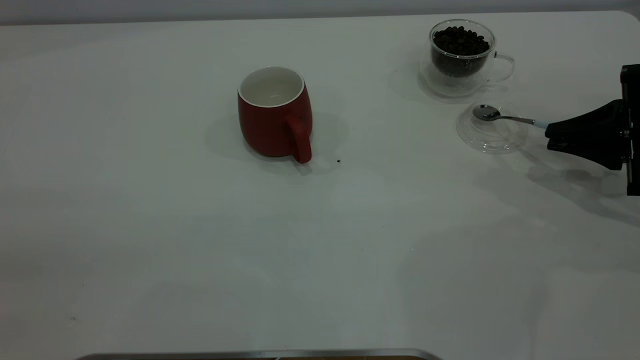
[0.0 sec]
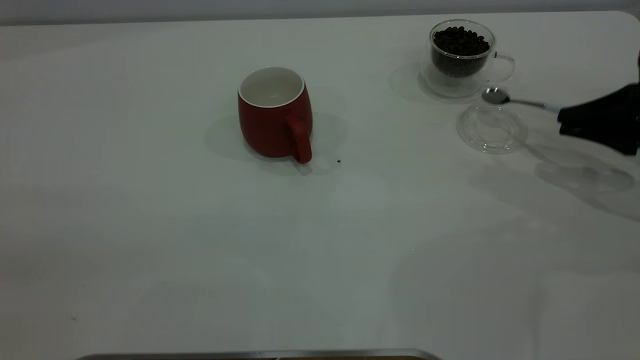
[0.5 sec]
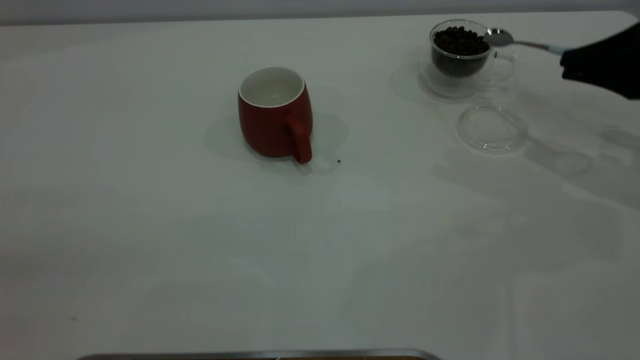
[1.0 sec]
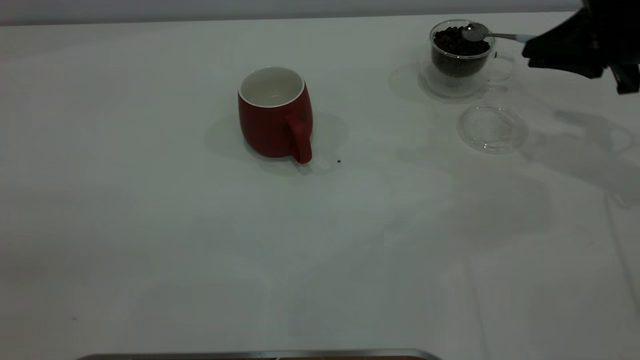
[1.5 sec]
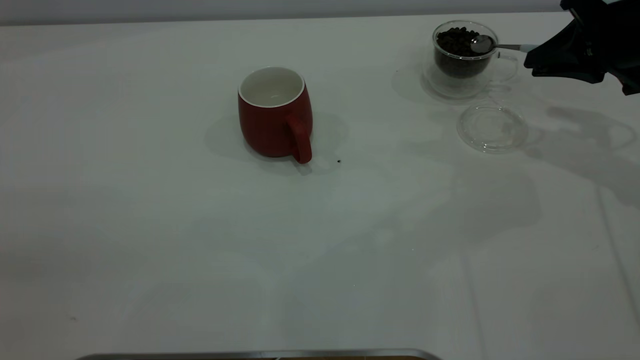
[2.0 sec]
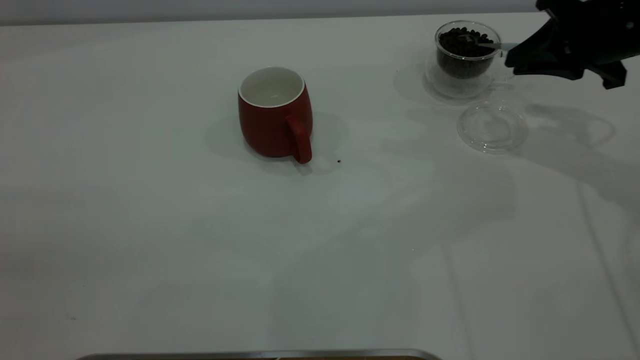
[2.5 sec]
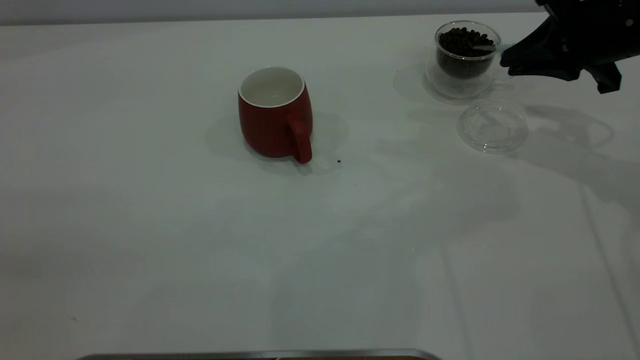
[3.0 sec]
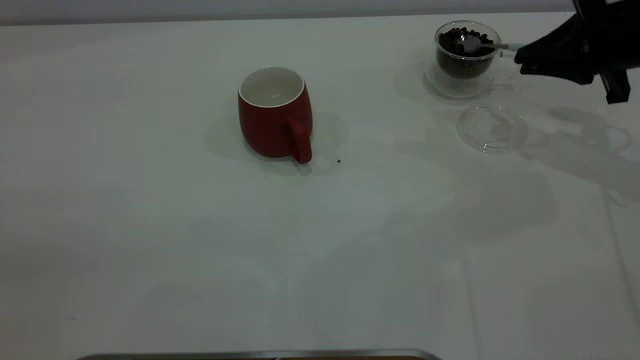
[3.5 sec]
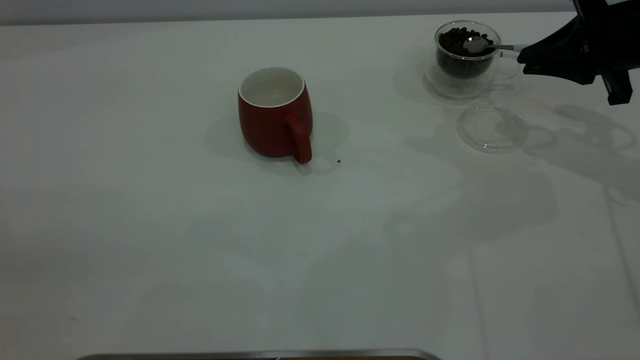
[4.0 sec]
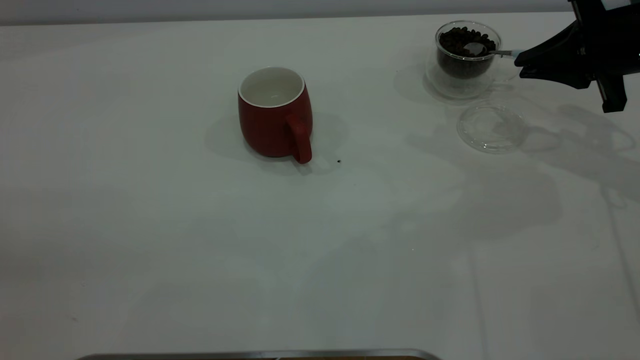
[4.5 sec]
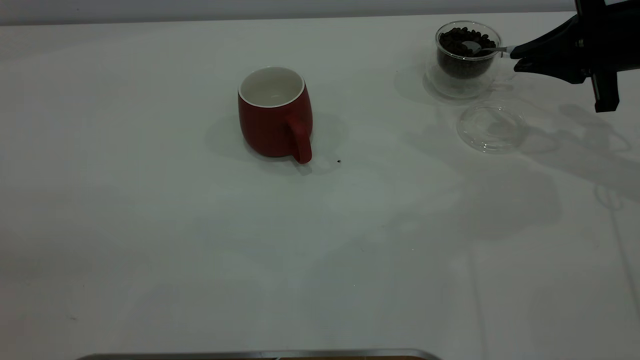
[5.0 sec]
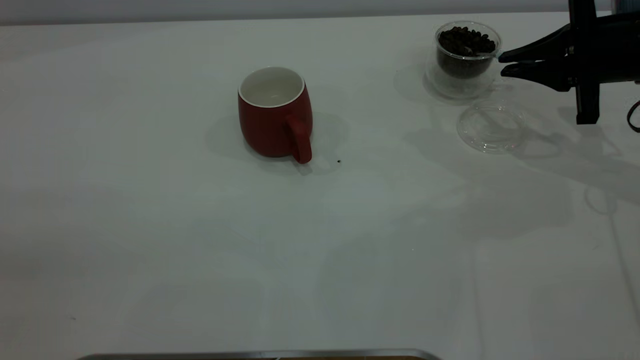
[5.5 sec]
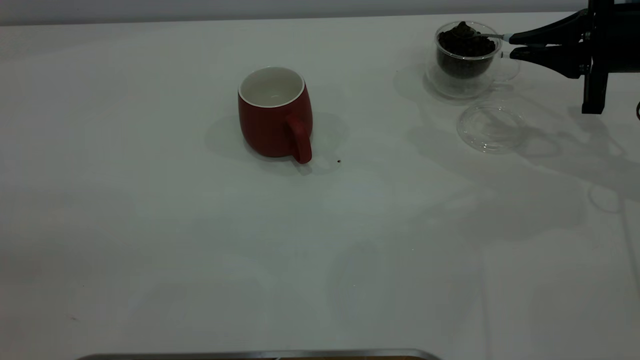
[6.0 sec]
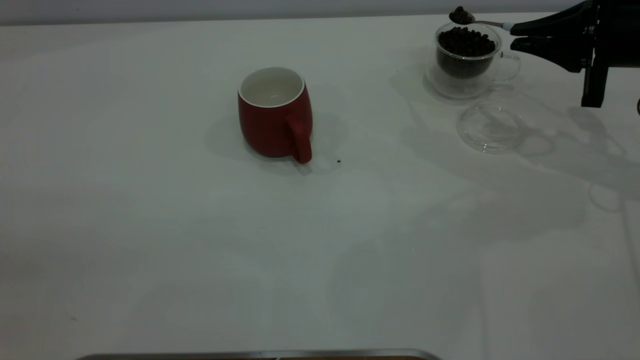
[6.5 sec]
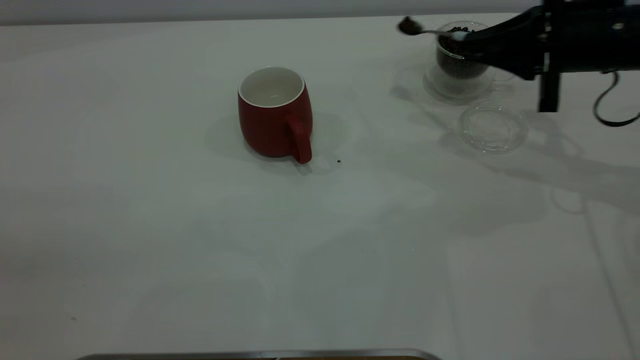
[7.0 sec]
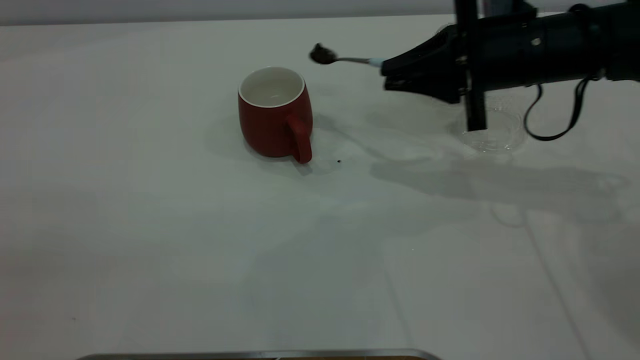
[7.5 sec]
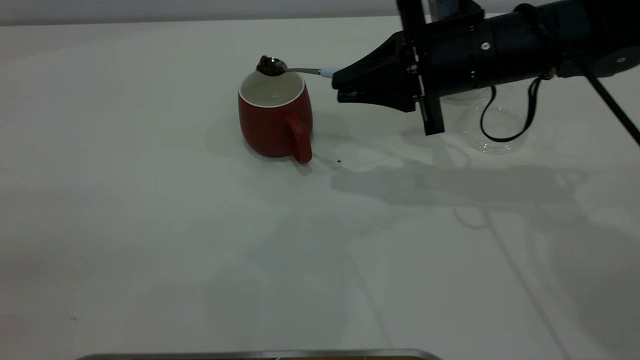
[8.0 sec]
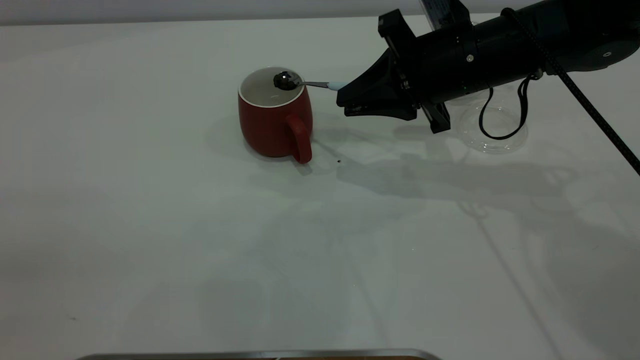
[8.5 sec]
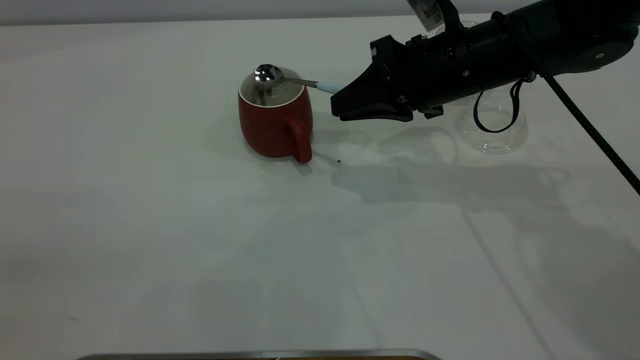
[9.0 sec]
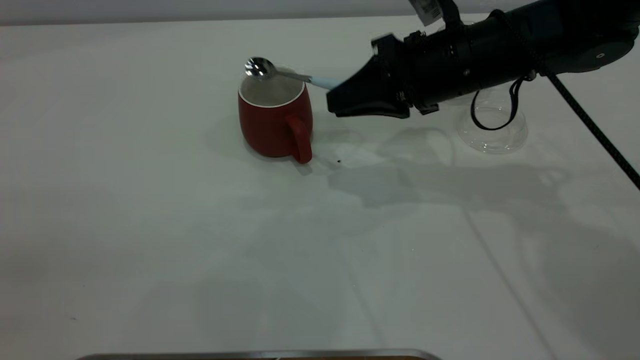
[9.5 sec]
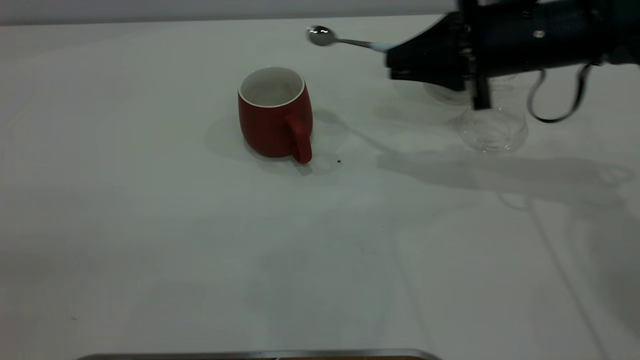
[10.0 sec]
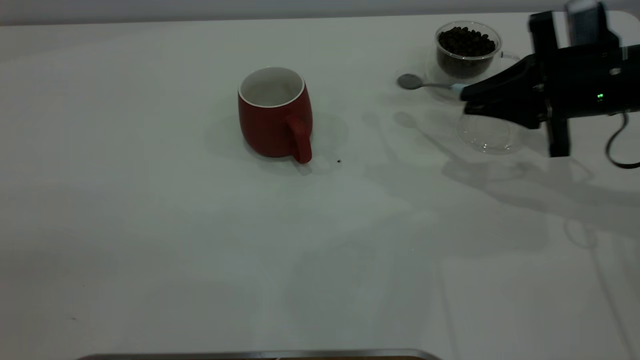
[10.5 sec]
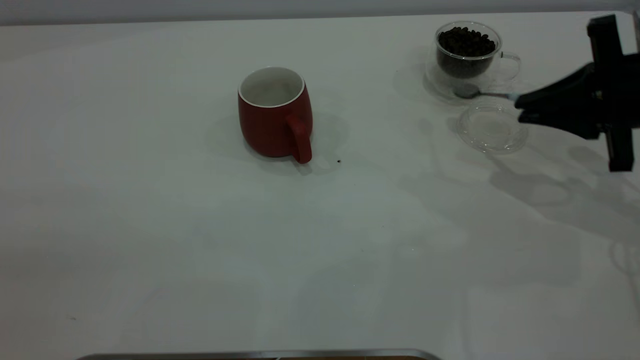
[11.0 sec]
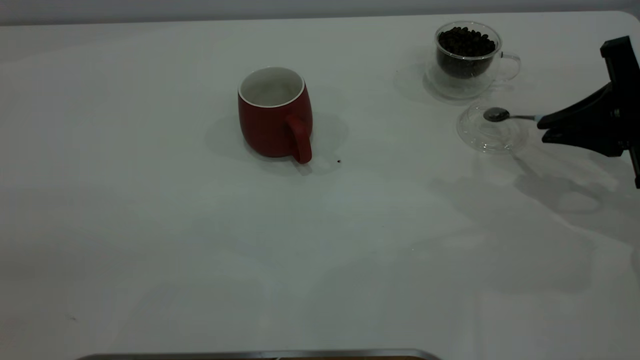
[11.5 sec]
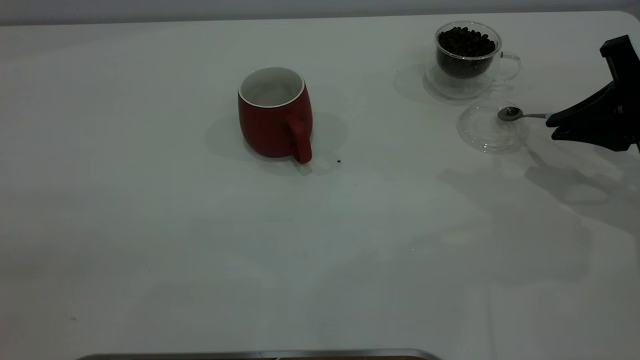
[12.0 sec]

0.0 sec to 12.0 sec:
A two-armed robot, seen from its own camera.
Task of the whole recording: the left gripper place the red cup in the center of the table, the right gripper take the blue spoon from the cup lid and scoop out the coffee beans from the coffee cup and put them into the red cup, the right gripper put the spoon back into the cup lid.
Step, 0.5 sec to 9.5 sec: Scoop a spoonful of beans into the cup.
0.0 sec to 2.0 sec: The right gripper travels upward and forward by some 10 cm.
2.0 sec to 4.0 sec: The grippers move only a little.
6.0 sec to 8.0 sec: The right gripper shifts about 20 cm to the left.
8.0 sec to 10.0 sec: The right gripper travels to the right by about 5 cm.
10.0 sec to 12.0 sec: The right gripper goes approximately 15 cm to the right and backward.

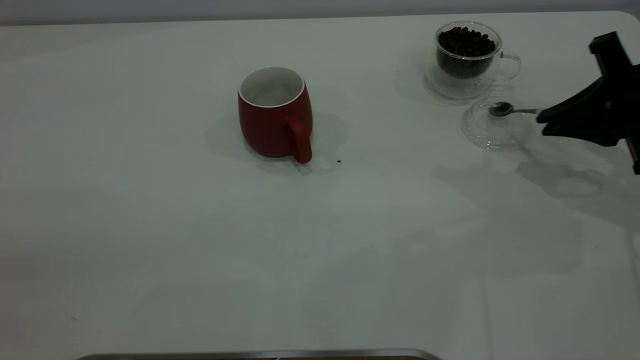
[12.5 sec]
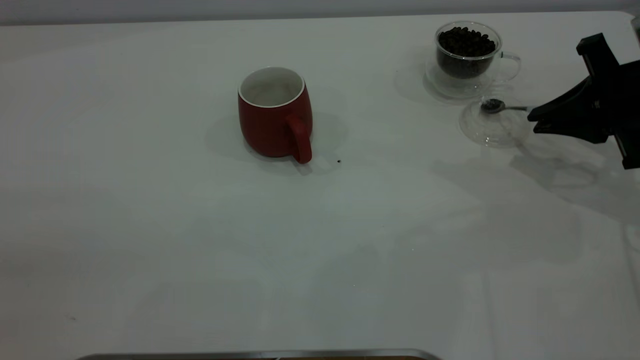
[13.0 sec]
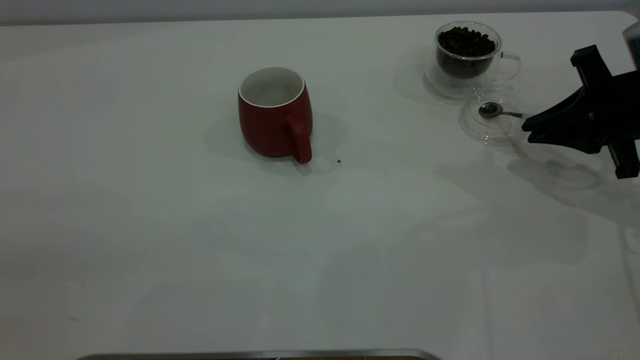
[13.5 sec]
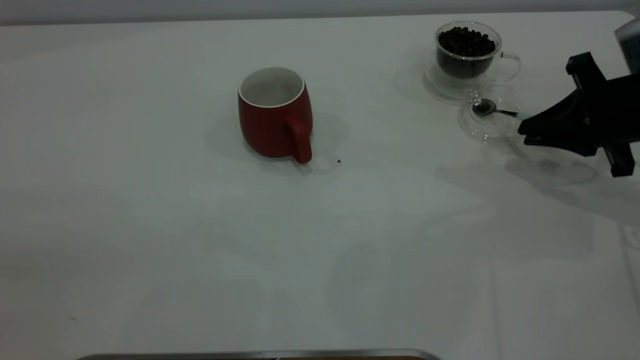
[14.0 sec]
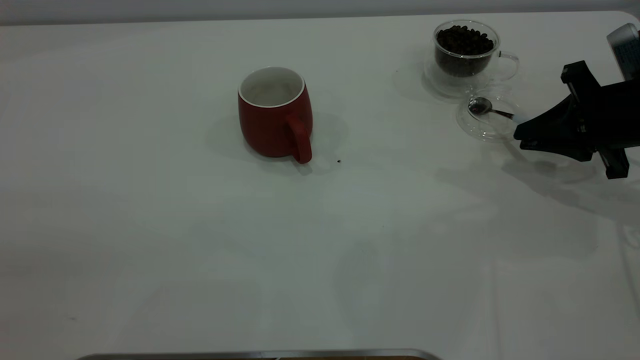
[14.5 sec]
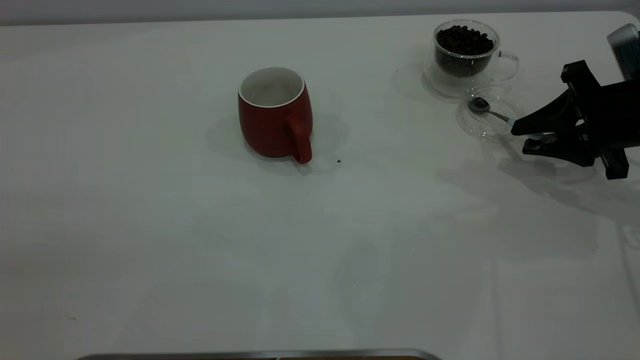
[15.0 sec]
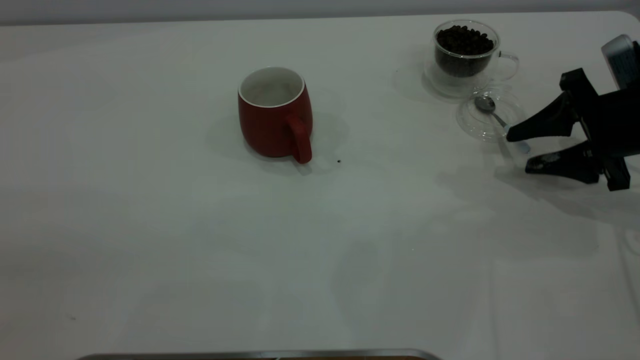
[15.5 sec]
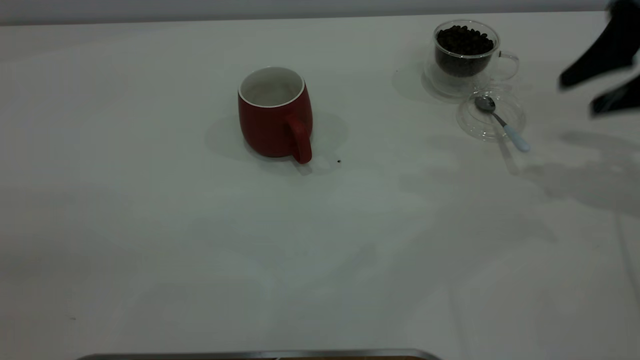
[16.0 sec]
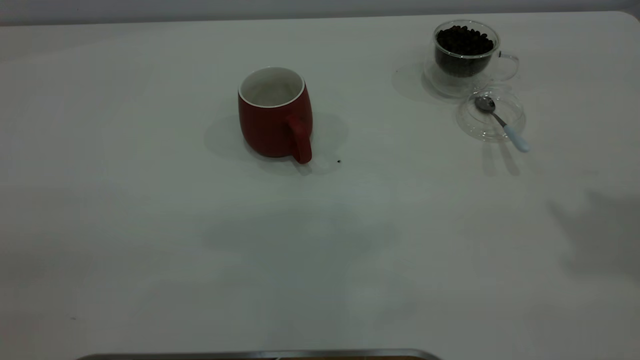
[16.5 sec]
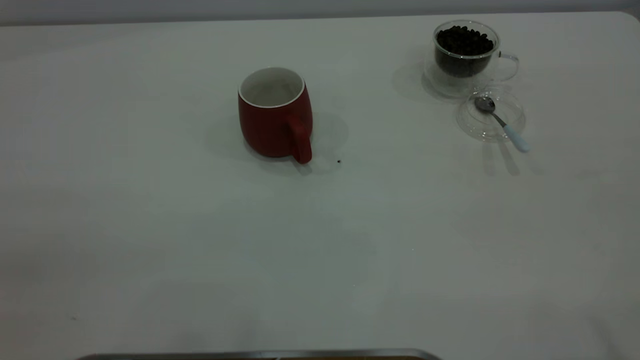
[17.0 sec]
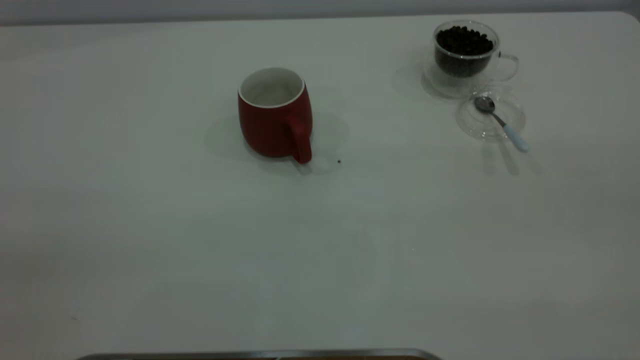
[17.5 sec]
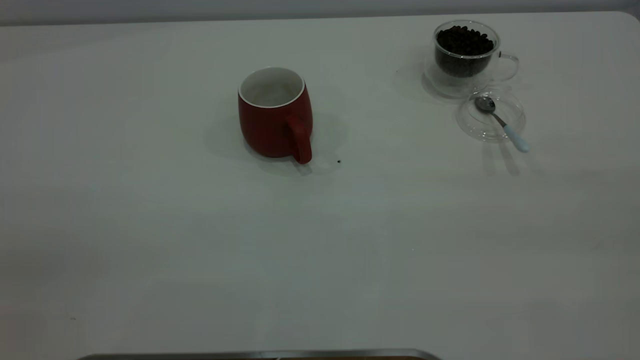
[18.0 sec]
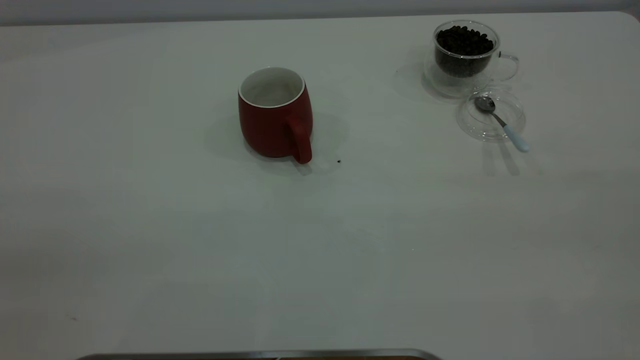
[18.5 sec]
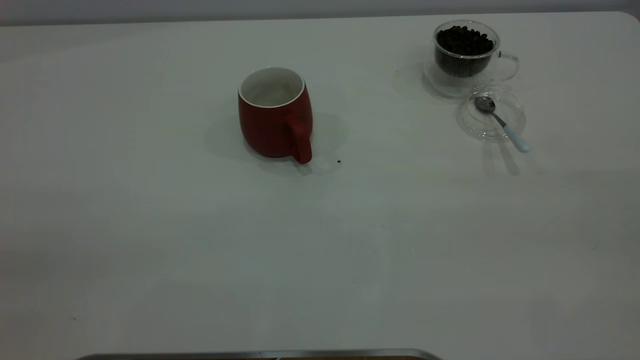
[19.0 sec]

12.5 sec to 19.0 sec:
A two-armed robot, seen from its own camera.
Task of the whole recording: the left gripper place the red cup in the center of the table, the right gripper take the blue spoon from the cup lid and scoop out the coffee beans from the coffee cup and put them into the red cup, the right gripper put the spoon back into the cup lid.
Step, 12.5 sec to 15.5 sec: Place the spoon back in its original place.
12.5 sec to 14.5 sec: The grippers stay close to where they were, moving slightly.
14.5 sec to 17.0 sec: The right gripper goes approximately 50 cm upward and backward, and opens.
